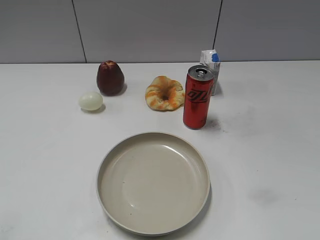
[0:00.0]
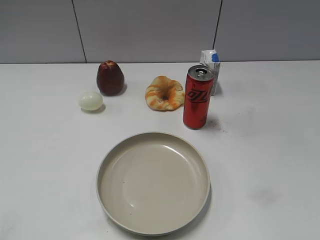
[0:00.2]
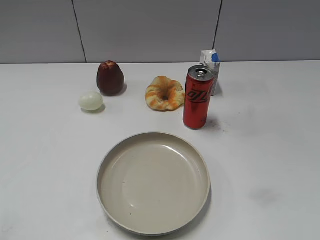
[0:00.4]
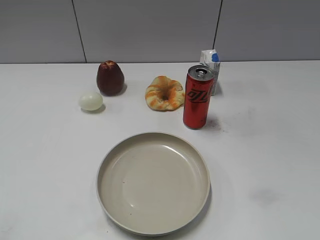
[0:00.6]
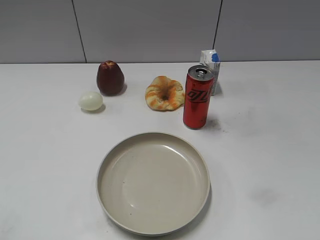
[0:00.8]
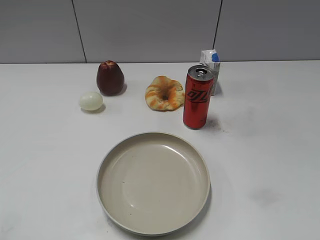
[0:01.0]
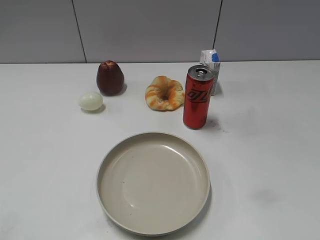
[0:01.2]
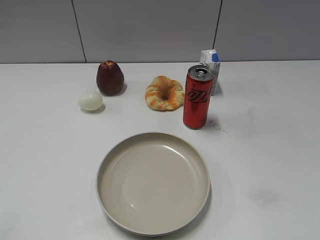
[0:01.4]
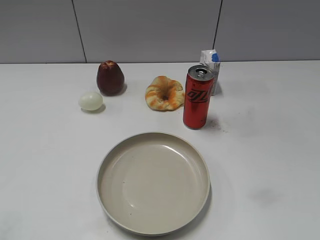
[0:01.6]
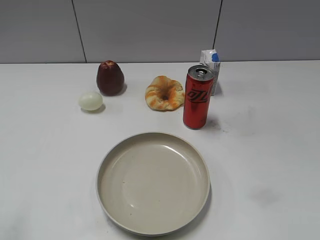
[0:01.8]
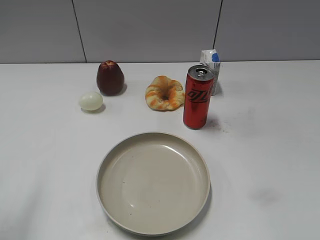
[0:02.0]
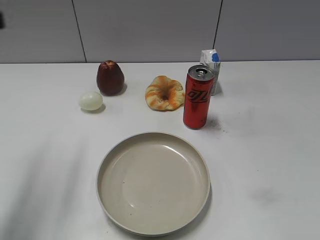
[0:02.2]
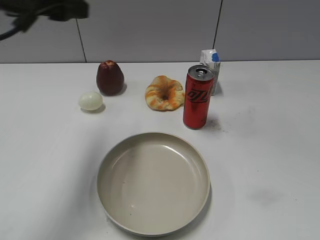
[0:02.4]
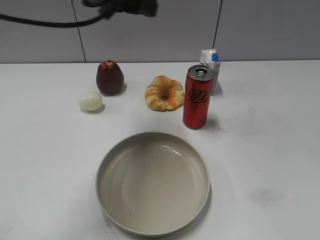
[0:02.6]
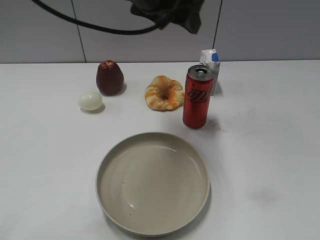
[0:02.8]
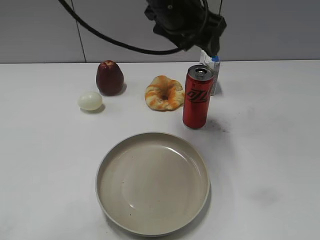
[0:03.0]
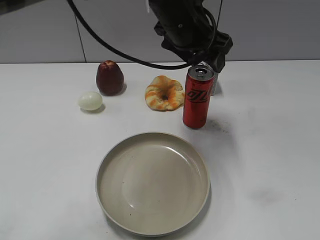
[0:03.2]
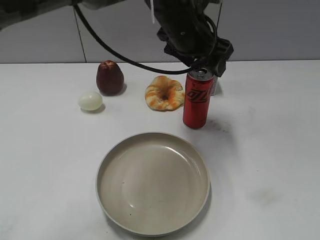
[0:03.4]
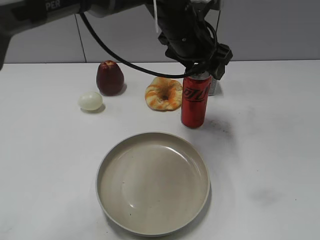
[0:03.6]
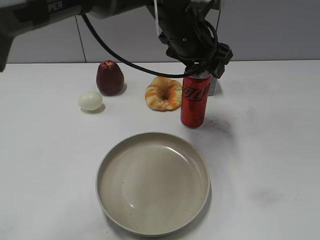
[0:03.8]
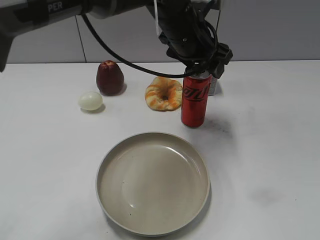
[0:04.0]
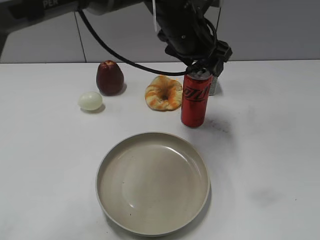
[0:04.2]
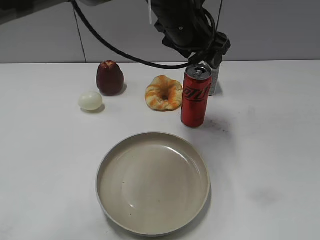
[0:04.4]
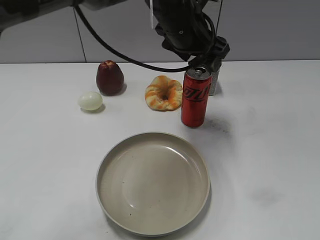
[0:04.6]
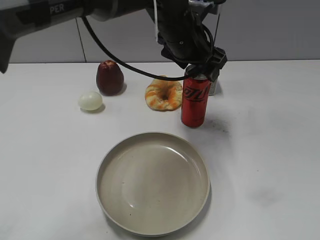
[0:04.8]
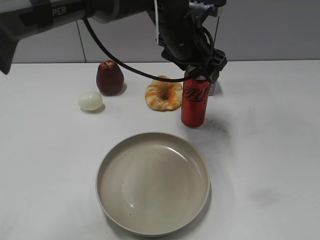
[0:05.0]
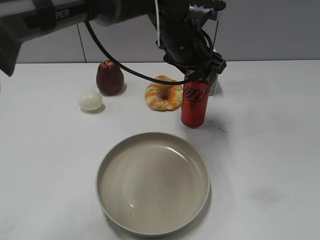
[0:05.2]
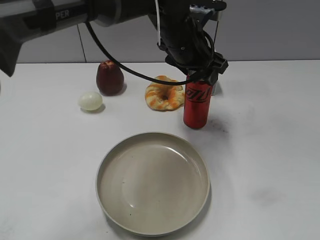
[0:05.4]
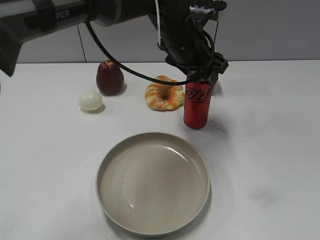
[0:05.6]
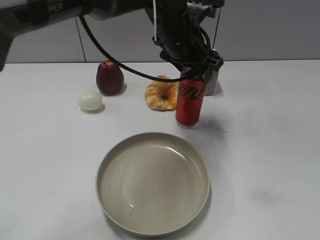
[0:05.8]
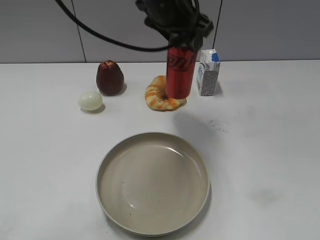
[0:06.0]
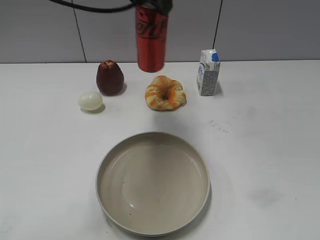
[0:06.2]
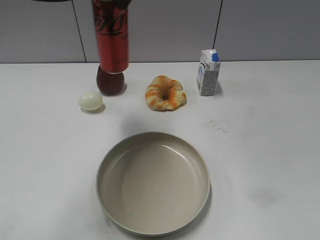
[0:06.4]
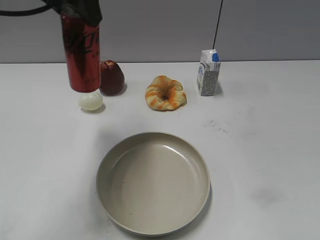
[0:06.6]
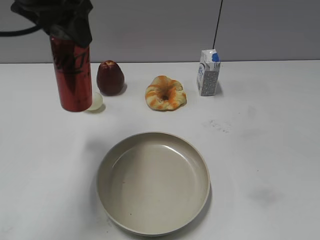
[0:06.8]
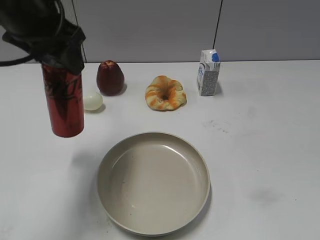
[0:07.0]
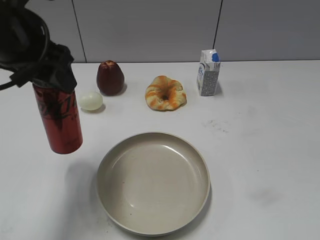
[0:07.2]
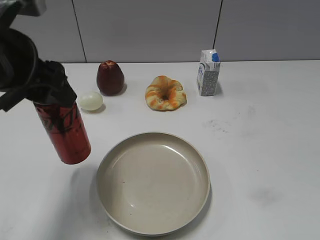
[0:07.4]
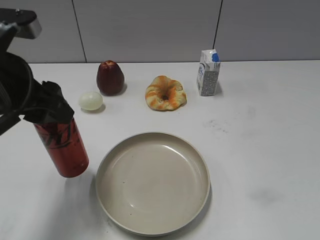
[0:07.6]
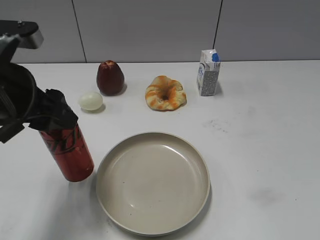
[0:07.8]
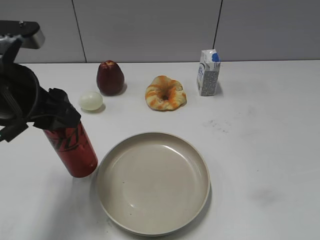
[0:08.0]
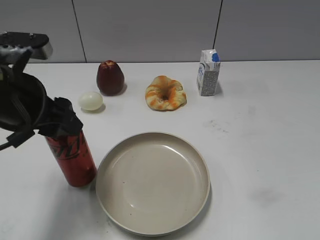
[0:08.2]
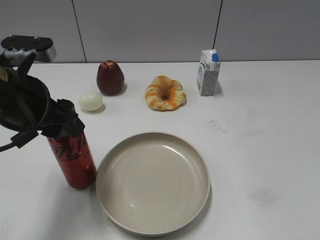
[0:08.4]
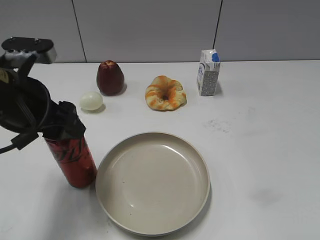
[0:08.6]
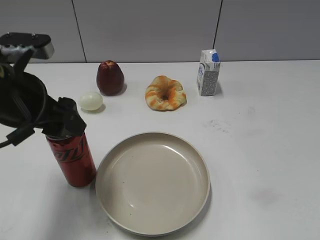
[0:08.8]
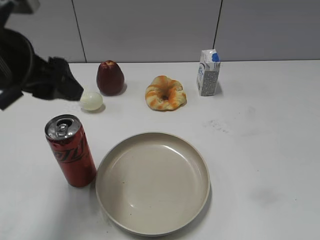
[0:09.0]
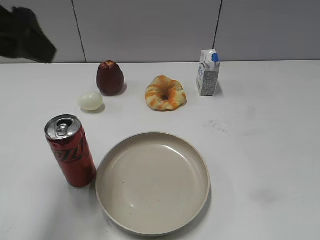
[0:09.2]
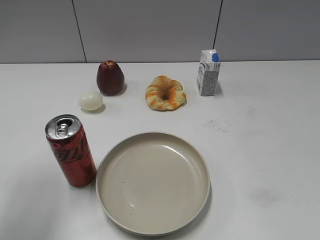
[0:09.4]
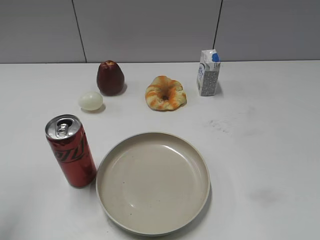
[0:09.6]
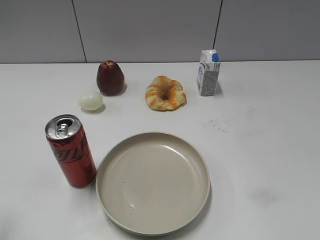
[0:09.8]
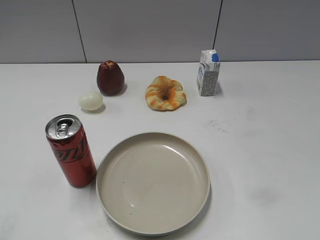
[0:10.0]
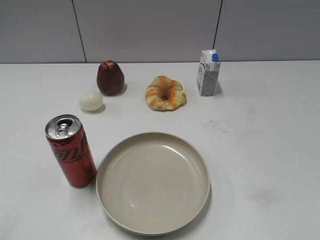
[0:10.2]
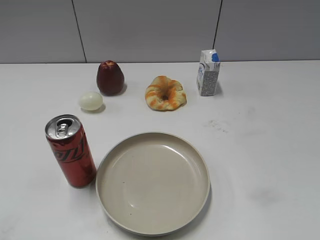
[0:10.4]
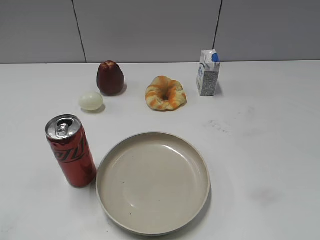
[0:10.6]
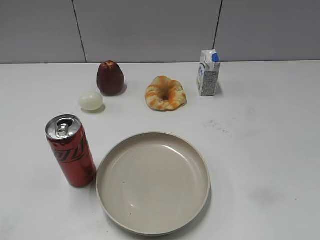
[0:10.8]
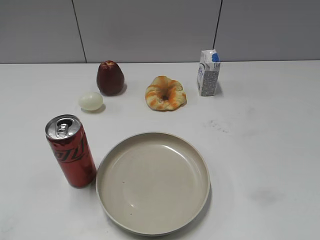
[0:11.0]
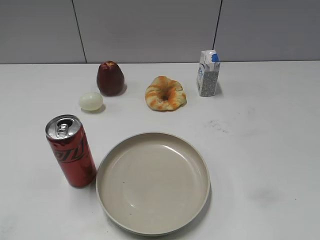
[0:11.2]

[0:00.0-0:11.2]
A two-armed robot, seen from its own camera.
Step, 0:00.6 to 0:05.6: Grasp the cola with left gripper.
Step, 0:05.8 to 0:09.0: Place the cola on the table with left gripper.
0:01.6 to 0:03.2: The left gripper travels to the right and forward by approximately 50 cm.
0:03.2 to 0:04.8: The grippers move only a little.
0:04.8 to 0:06.4: The left gripper goes some 20 cm to the left and upward, and closes its fingers.
0:06.4 to 0:08.0: The left gripper shifts about 20 cm downward, backward and to the left.
0:08.0 to 0:09.6: The left gripper goes some 15 cm upward and to the left, and opens.
0:09.6 to 0:11.2: The left gripper travels backward and downward by about 20 cm.
